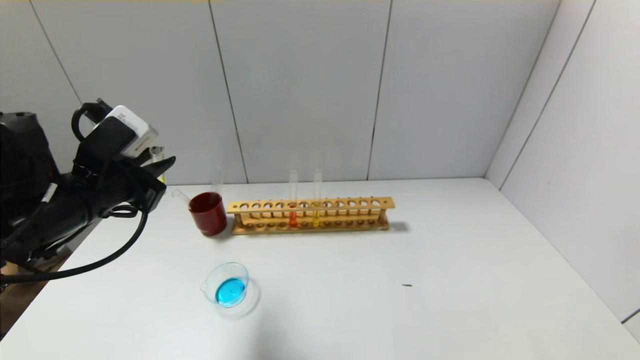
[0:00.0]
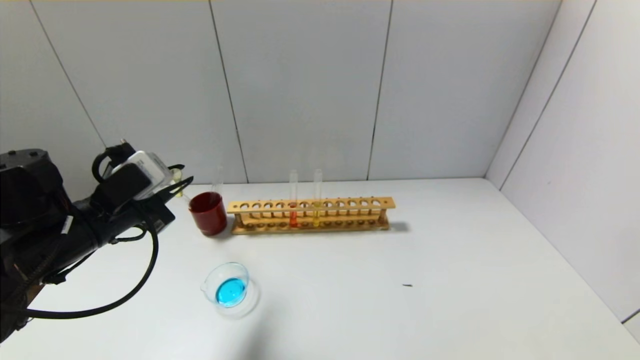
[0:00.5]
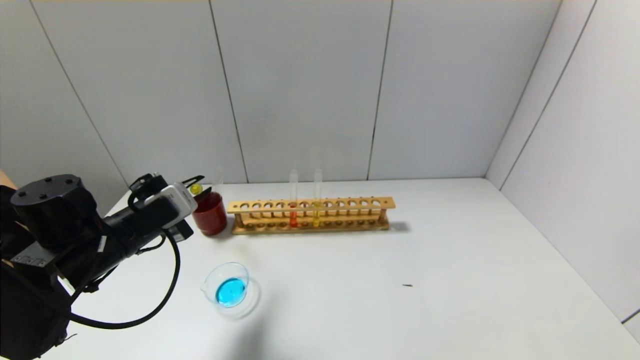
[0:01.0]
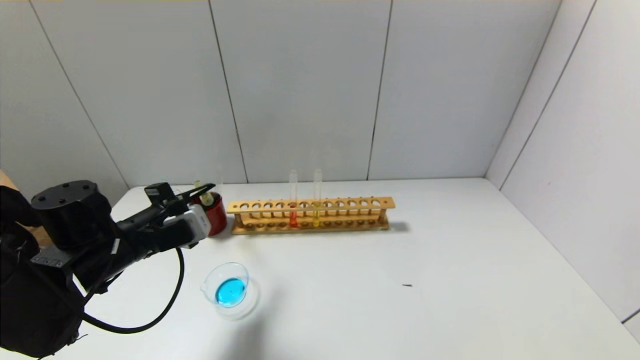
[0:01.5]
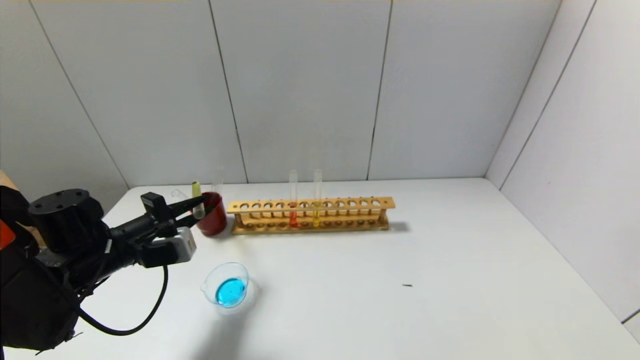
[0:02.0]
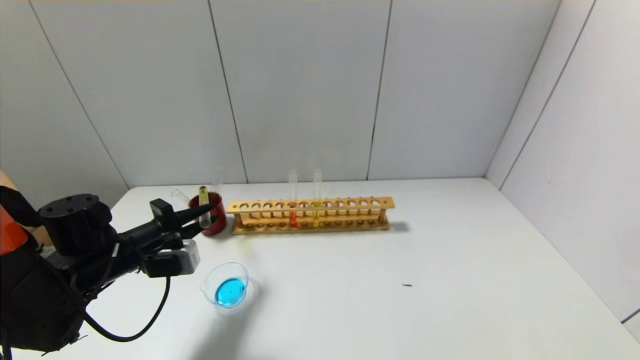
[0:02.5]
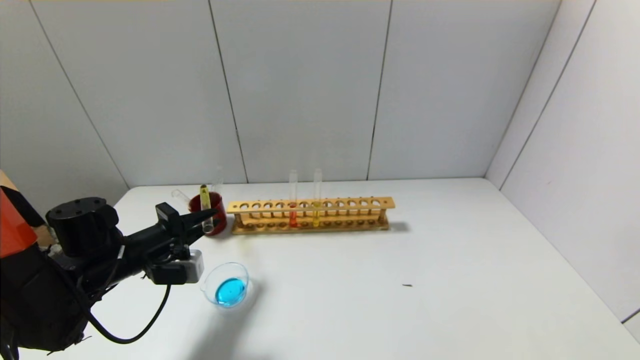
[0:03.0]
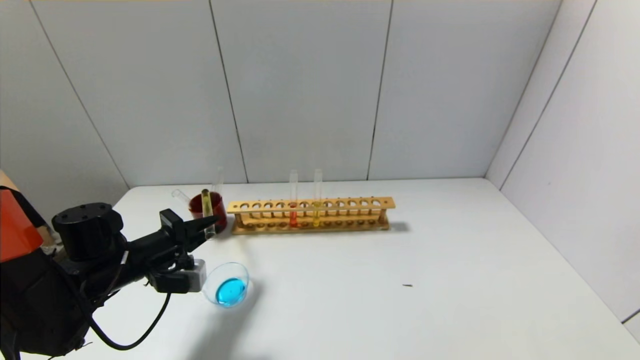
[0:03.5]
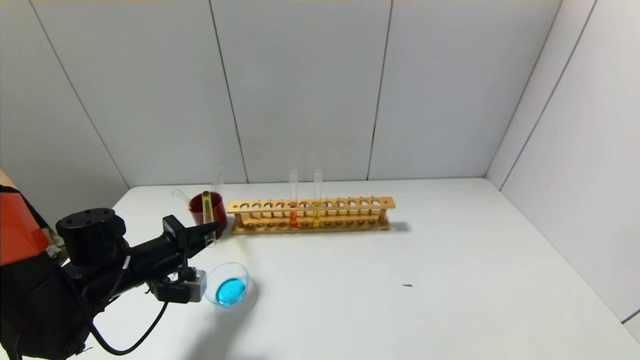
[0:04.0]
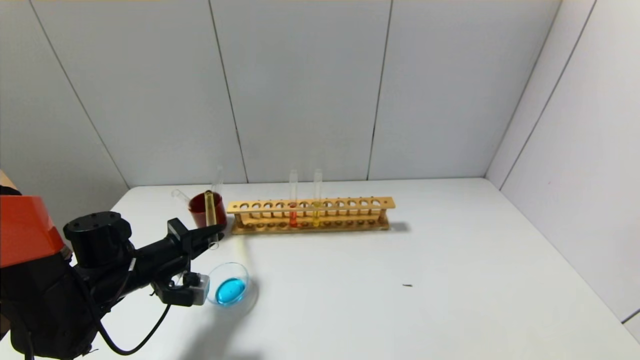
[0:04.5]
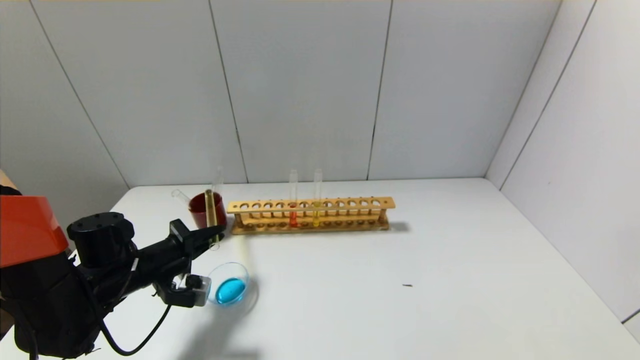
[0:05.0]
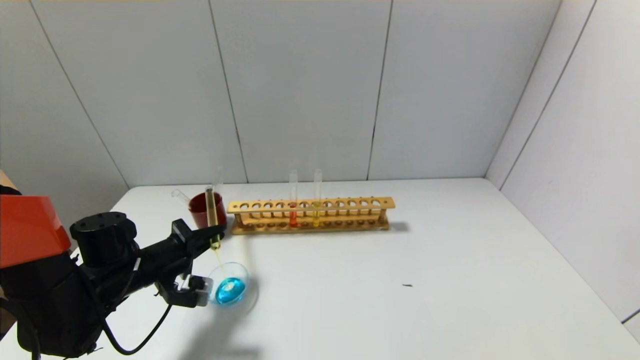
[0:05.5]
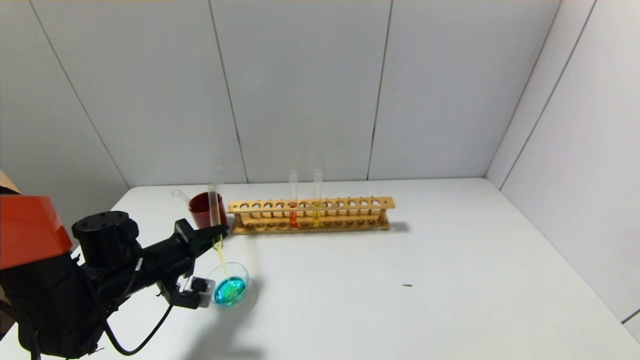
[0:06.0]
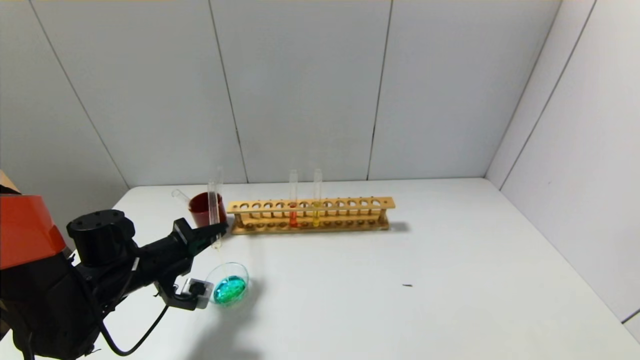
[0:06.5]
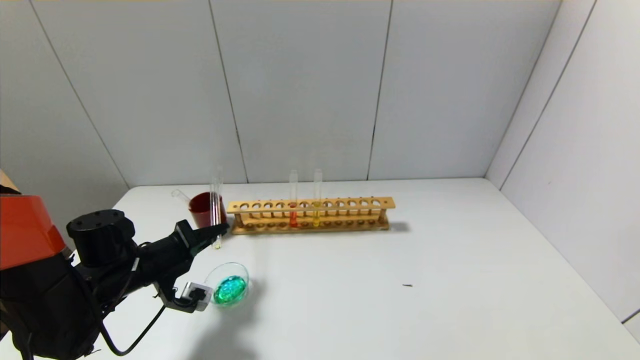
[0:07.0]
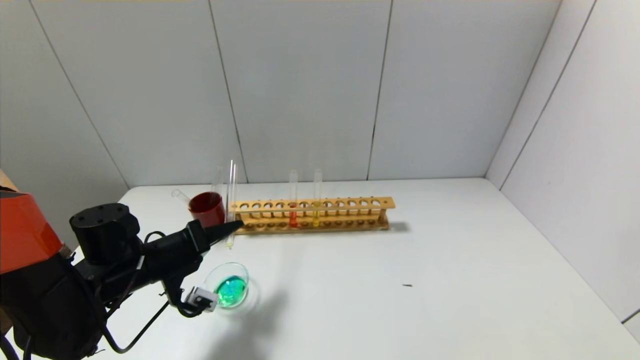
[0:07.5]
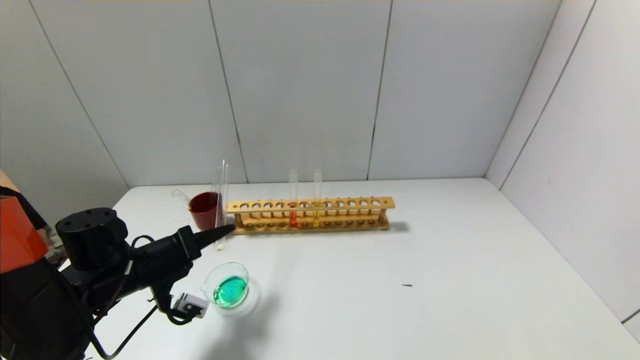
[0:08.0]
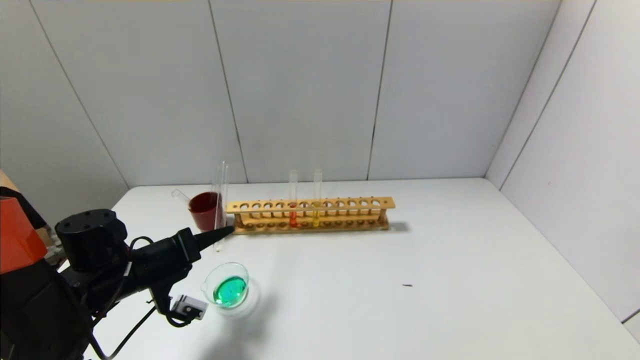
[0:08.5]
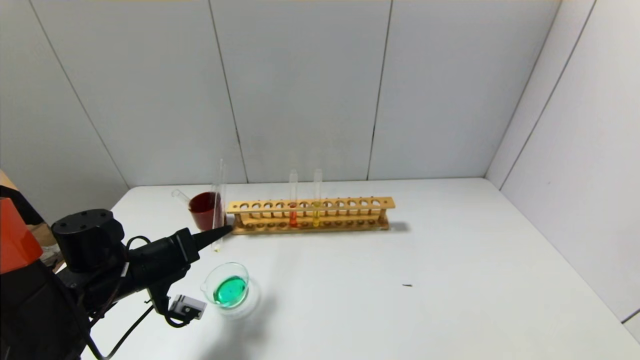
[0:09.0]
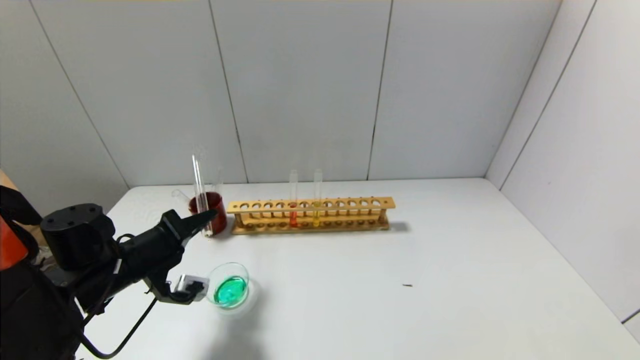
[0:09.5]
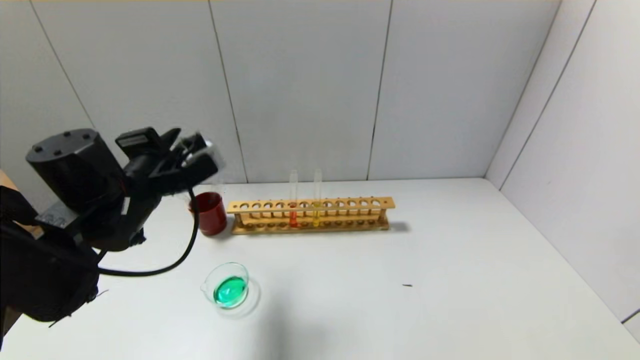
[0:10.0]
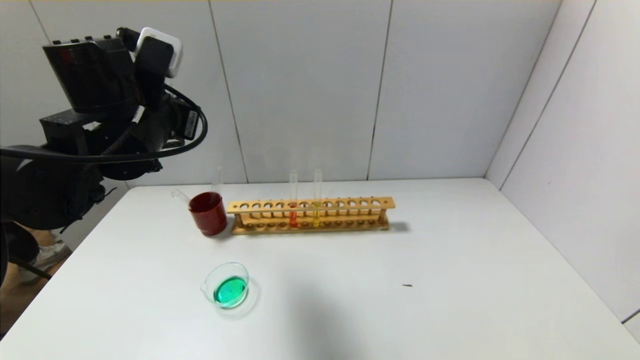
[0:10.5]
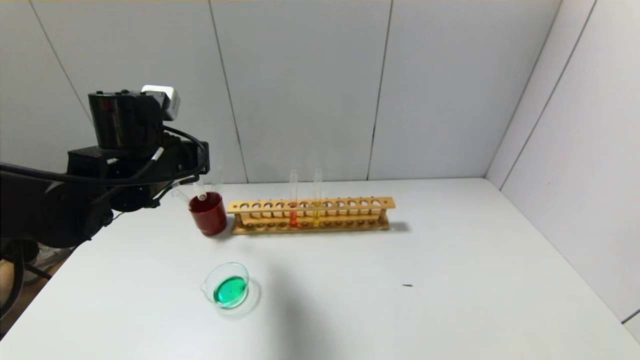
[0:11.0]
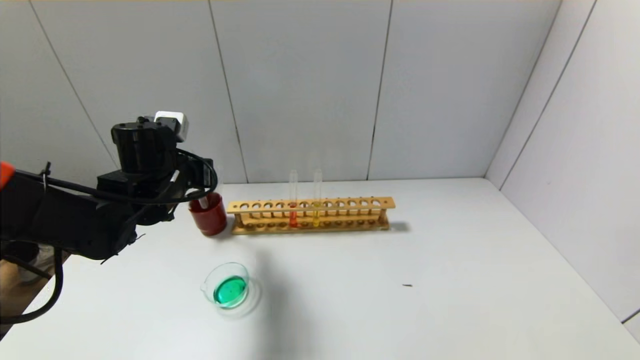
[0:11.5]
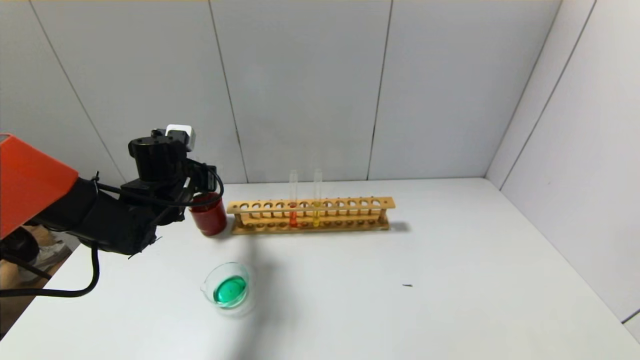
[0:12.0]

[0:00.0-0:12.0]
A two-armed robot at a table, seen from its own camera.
Step, 0:00.0 to 0:09.5: Pour the yellow reagent into the graduated cylinder with the left gripper.
0:00.0 to 0:02.0: The left gripper moves downward, approximately 10 cm.
0:02.0 to 0:04.0: The grippers move only a little.
0:04.0 to 0:06.0: The grippers make only small movements.
0:08.0 to 0:10.0: The left gripper travels upward by roughly 10 cm.
0:10.0 to 0:12.0: The left gripper travels forward and downward by roughly 10 cm.

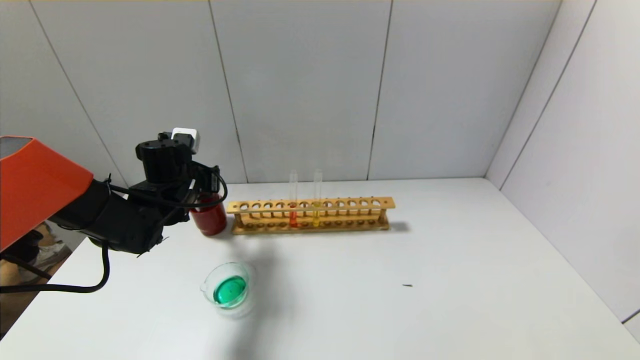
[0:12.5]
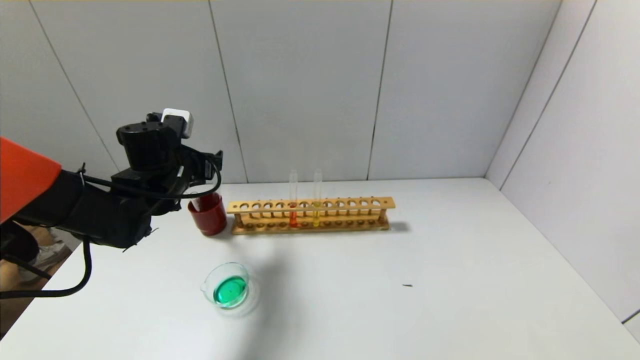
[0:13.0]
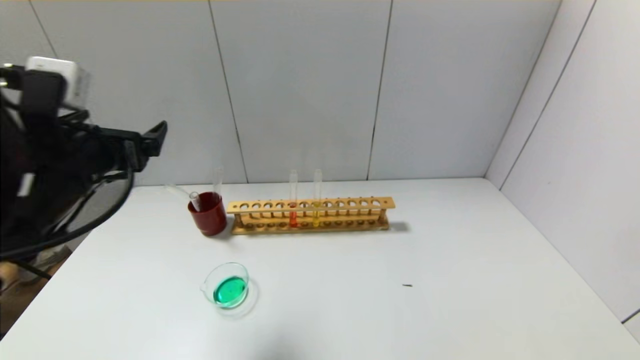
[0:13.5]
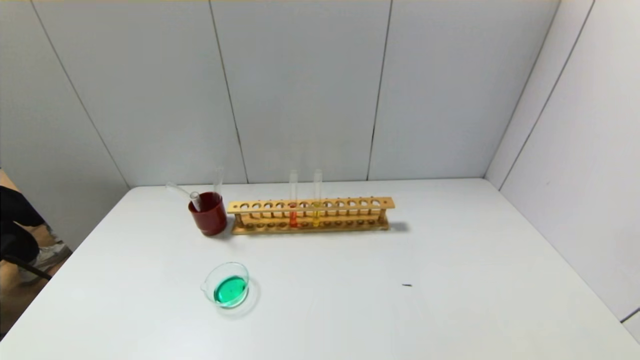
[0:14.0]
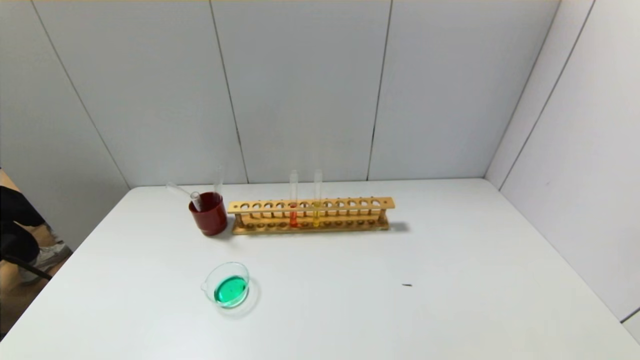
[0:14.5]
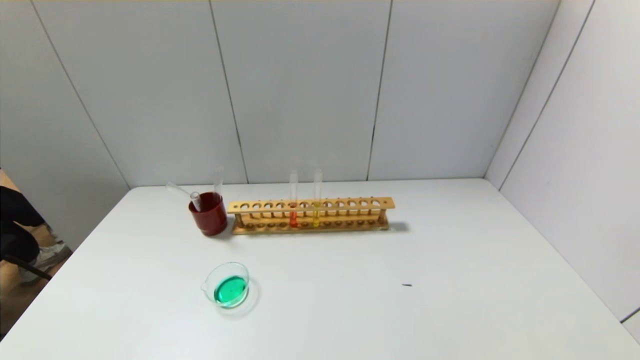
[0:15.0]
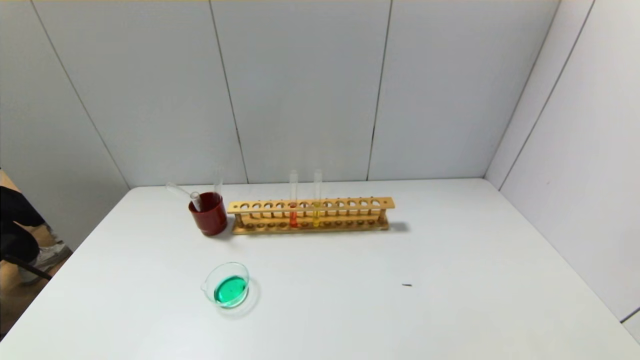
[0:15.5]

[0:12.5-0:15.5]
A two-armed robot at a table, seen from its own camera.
0:12.5 to 0:14.0: The left gripper heads backward, covering some 35 cm, and opens its fingers.
